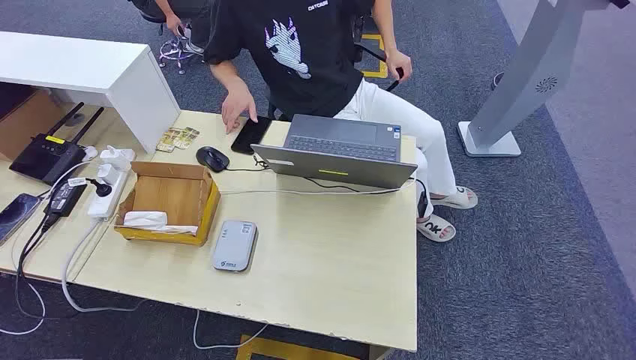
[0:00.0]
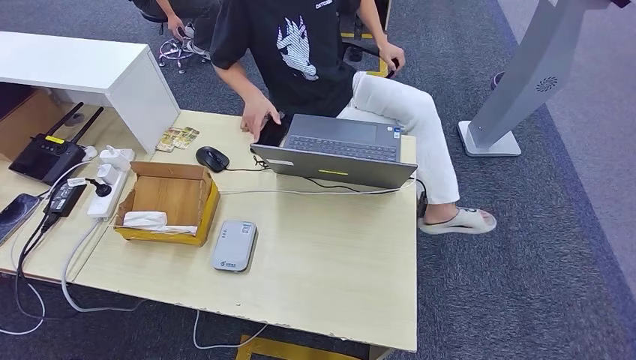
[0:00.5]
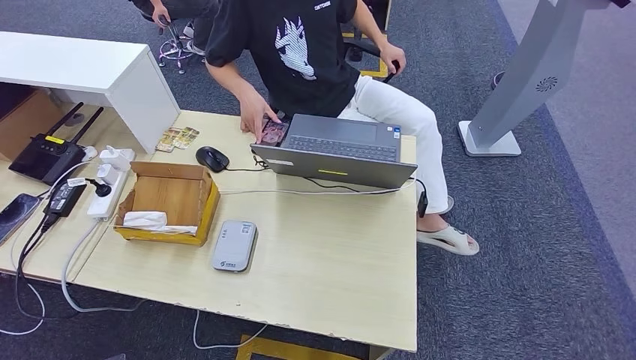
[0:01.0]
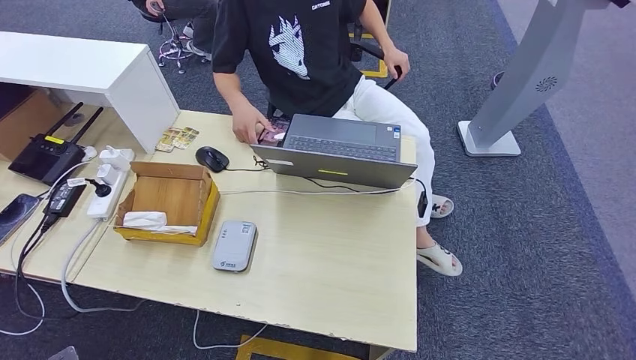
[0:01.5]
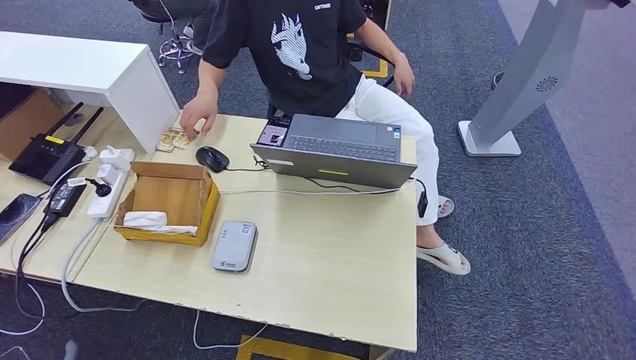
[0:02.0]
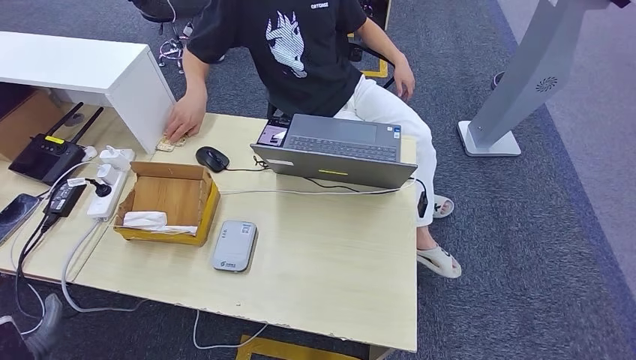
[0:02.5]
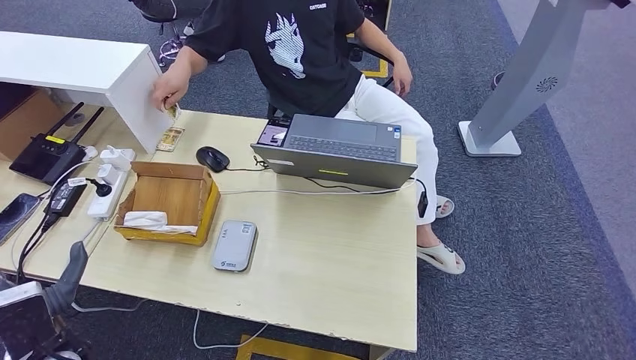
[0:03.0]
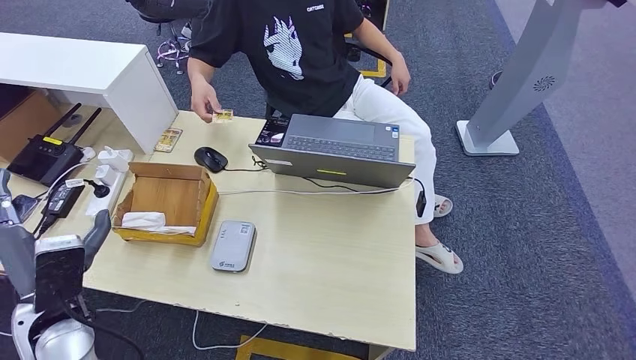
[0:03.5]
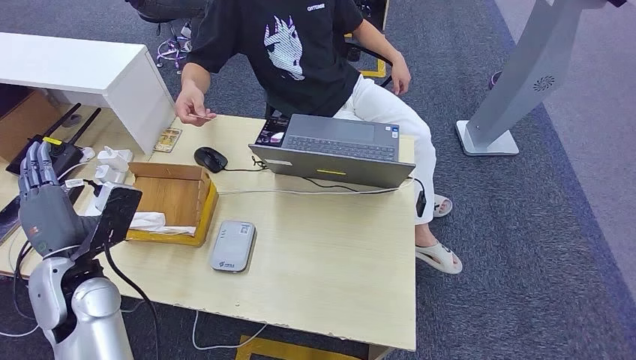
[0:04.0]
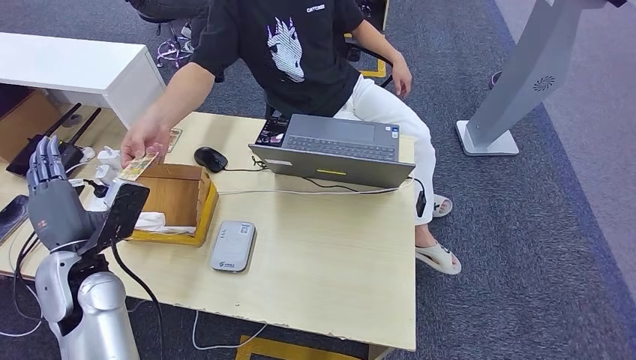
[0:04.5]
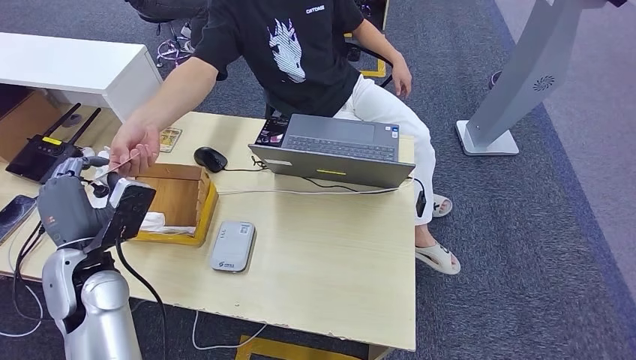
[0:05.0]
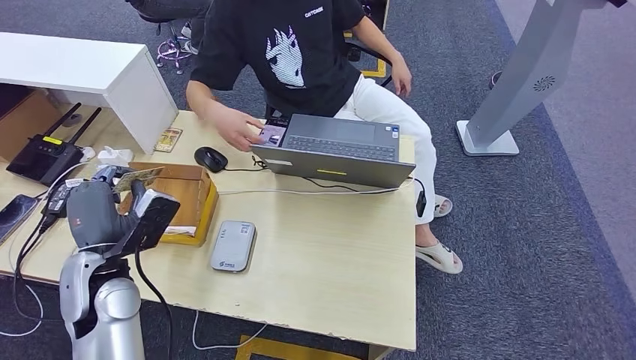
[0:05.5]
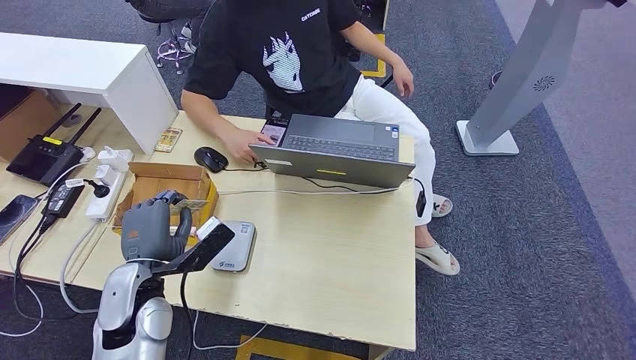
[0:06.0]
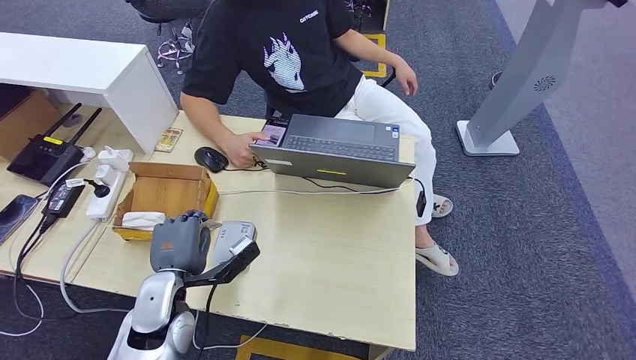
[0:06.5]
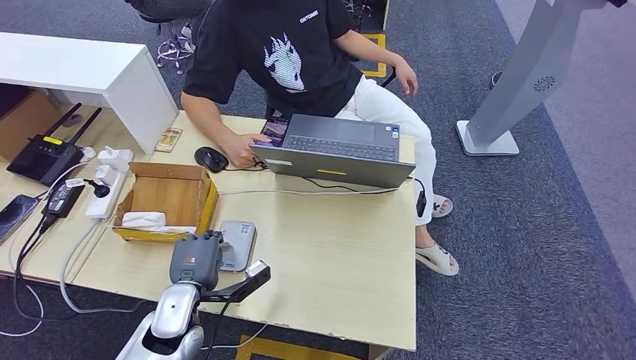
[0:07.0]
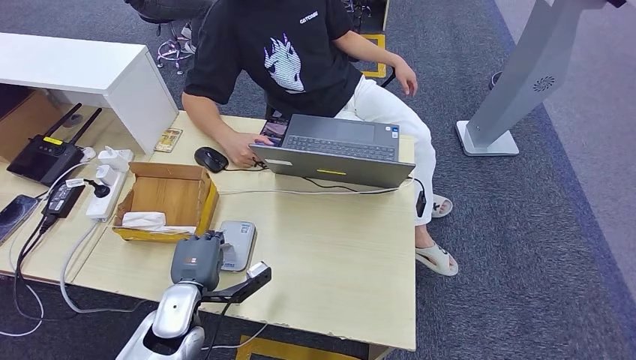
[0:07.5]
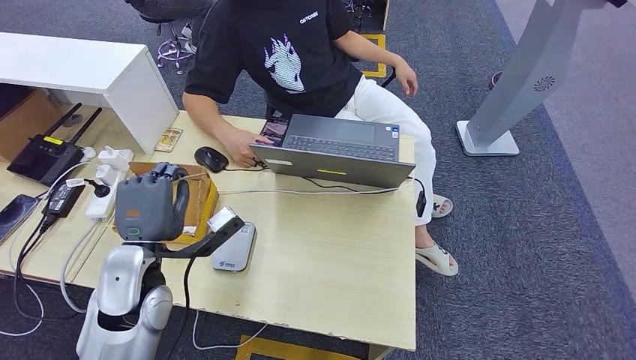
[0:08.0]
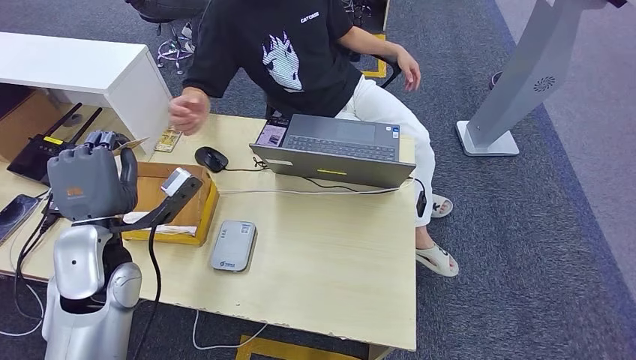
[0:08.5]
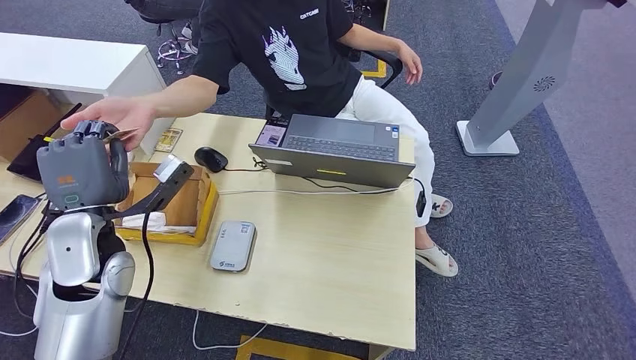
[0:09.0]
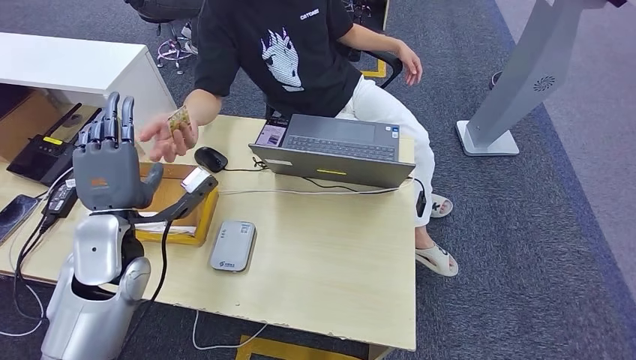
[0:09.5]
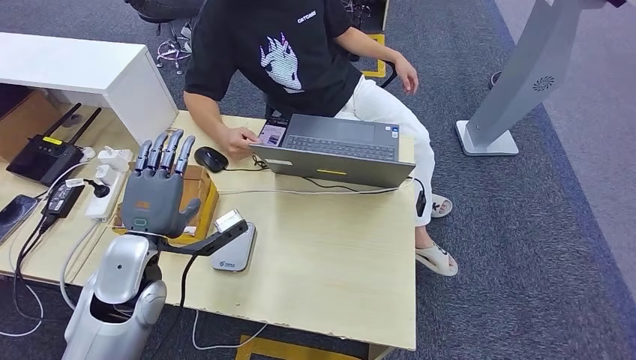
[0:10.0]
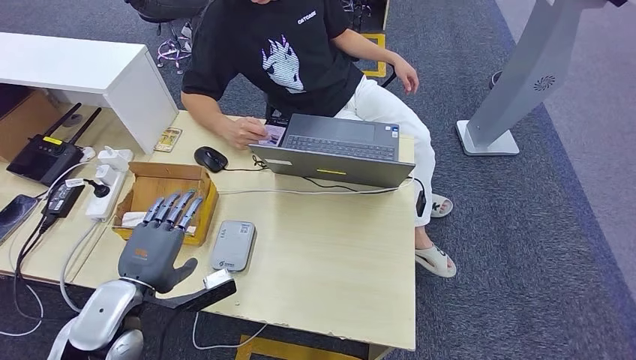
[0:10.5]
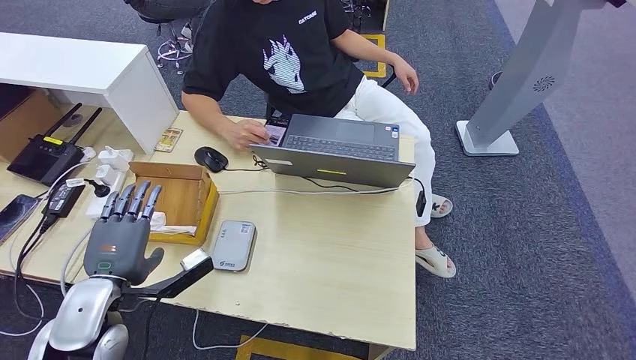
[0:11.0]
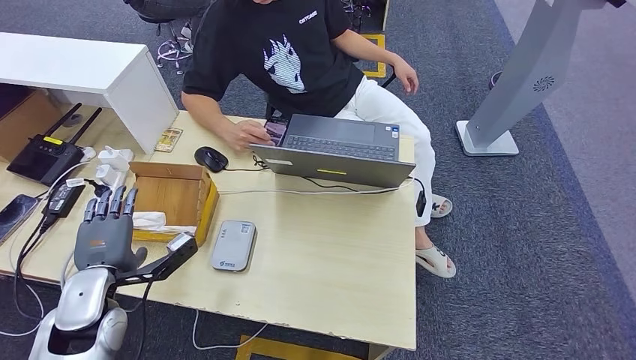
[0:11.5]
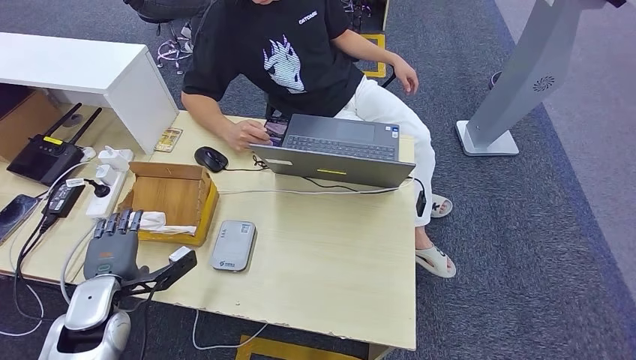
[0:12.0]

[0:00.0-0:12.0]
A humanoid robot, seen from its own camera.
Step, 0:00.0 to 0:05.5: Take the ID card from the person's hand.
Step, 0:06.0 to 0:07.0: Place the ID card on the card reader.
Step, 0:07.5 to 0:09.5: Hand the ID card to the person.
0:02.0 to 0:04.0: The left hand moves upward and forward, approximately 30 cm.
0:04.0 to 0:06.0: The left hand heads to the right, covering some 10 cm.
0:06.0 to 0:08.0: The left hand reaches about 10 cm downward, then returns.
0:10.0 to 0:12.0: The left hand goes roughly 15 cm downward and to the left.

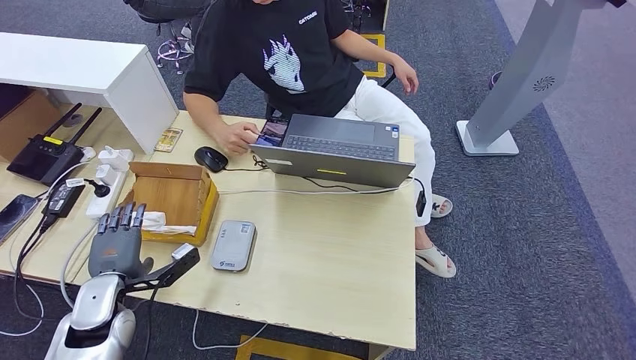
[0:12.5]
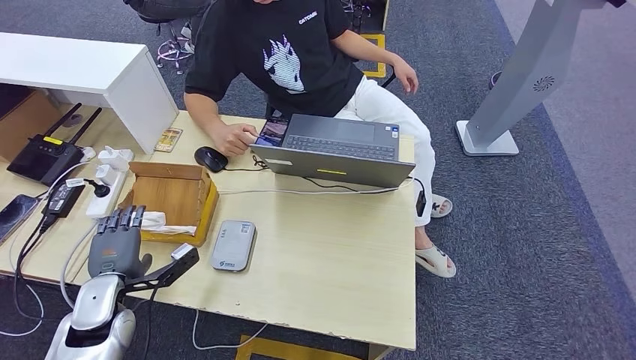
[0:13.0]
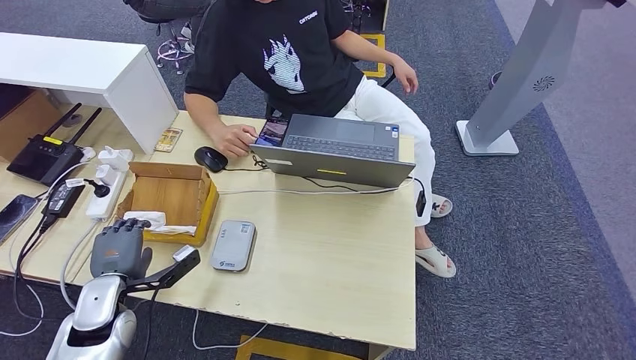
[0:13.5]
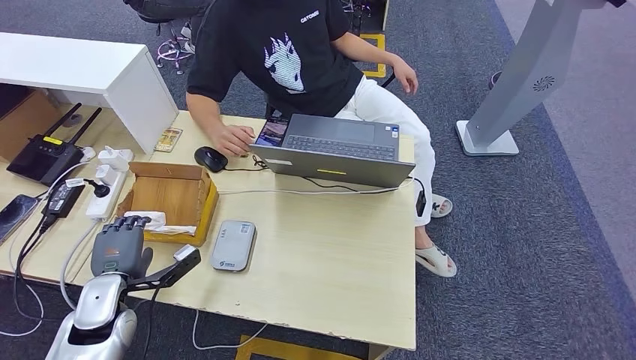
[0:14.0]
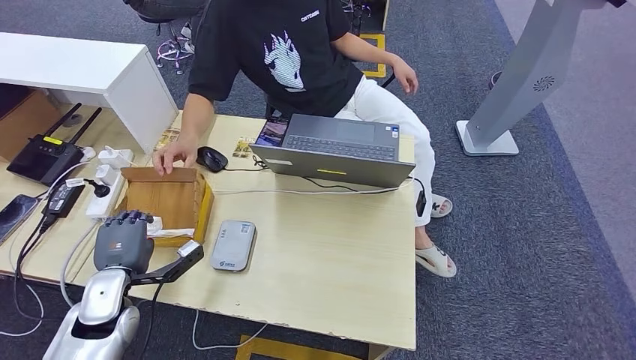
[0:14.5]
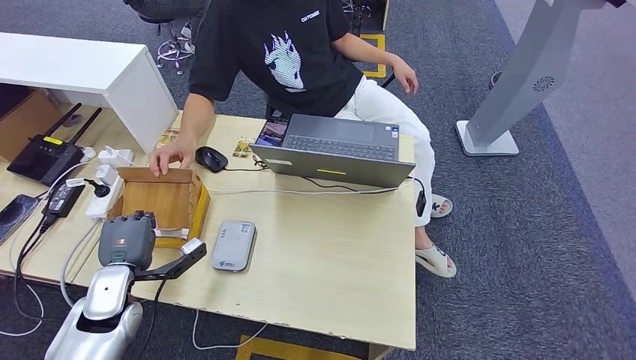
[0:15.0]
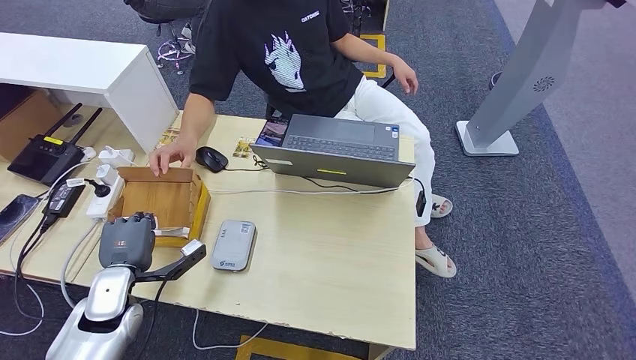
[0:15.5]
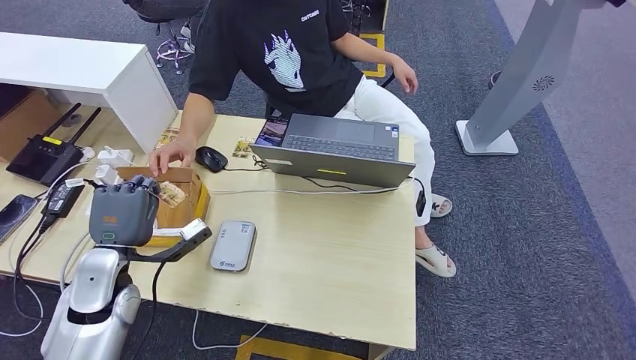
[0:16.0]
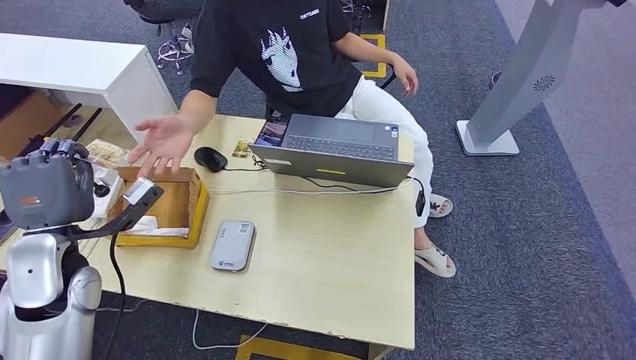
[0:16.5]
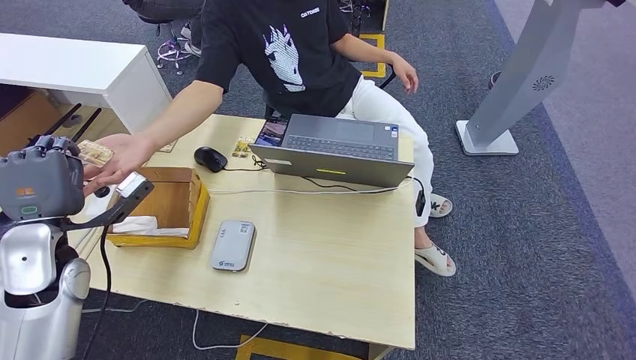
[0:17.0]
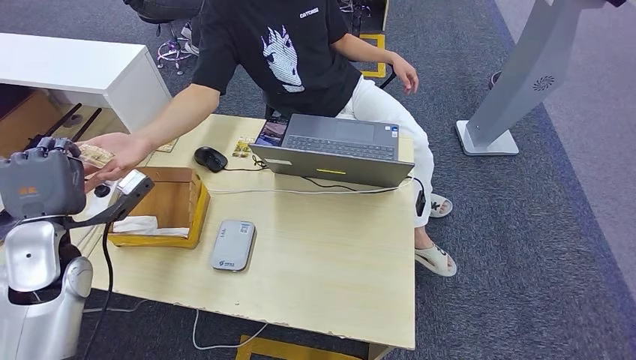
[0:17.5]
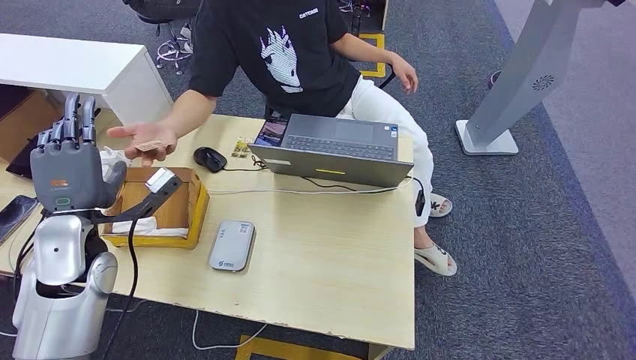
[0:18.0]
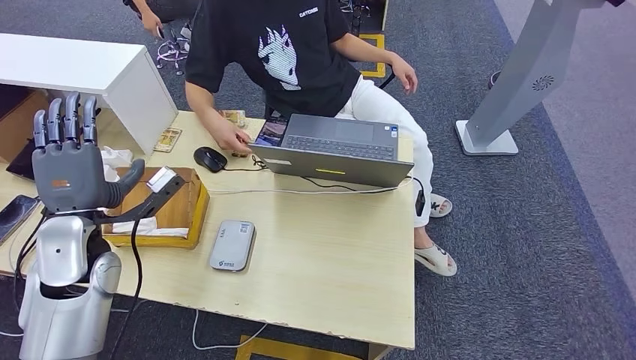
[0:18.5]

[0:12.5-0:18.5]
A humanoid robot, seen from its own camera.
Step, 0:12.5 to 0:16.0: Pick up the room key from the key card box.
Step, 0:16.5 to 0:18.5: Hand the room key to the person.
0:12.5 to 0:14.5: The hands move only a little.
0:14.5 to 0:16.5: The left hand is displaced upward by roughly 15 cm.
0:16.5 to 0:18.5: There are only small adjustments of the hands.
